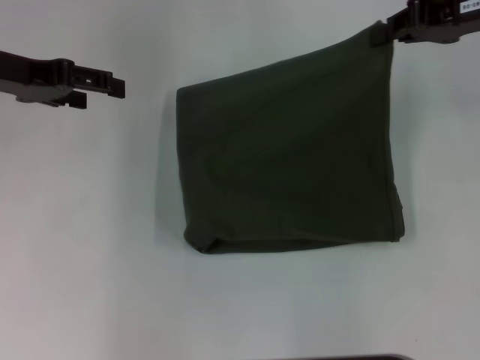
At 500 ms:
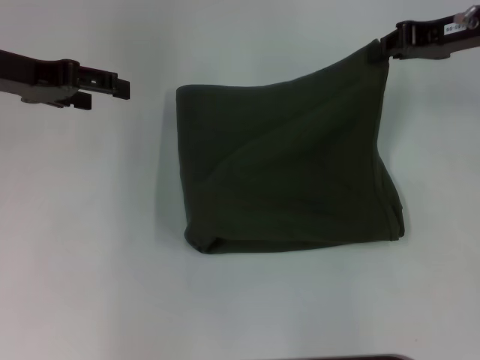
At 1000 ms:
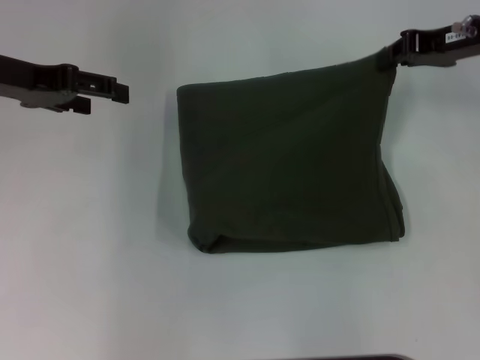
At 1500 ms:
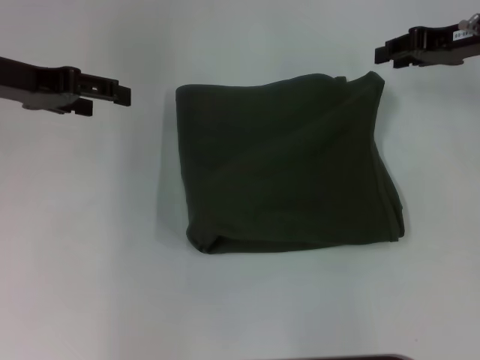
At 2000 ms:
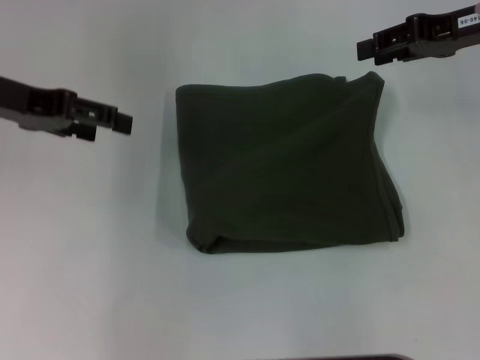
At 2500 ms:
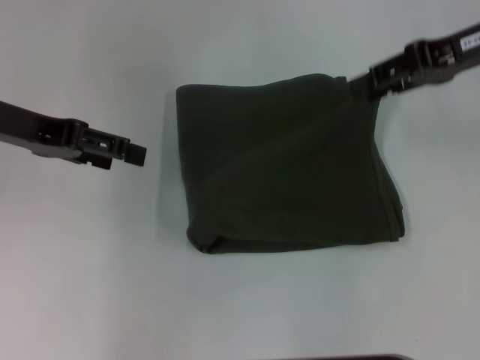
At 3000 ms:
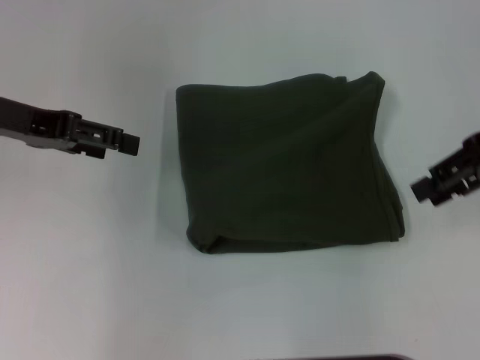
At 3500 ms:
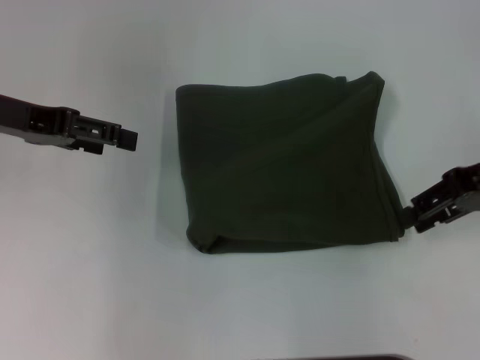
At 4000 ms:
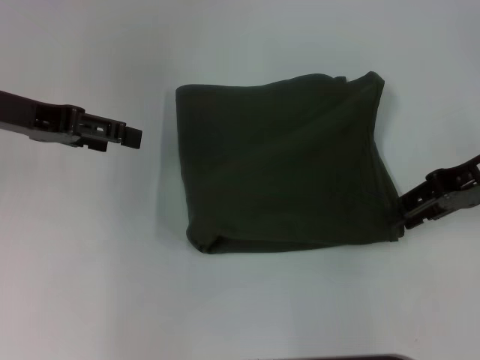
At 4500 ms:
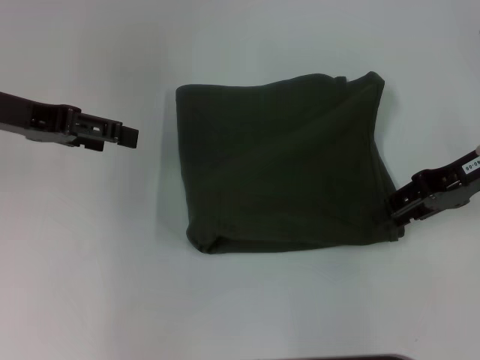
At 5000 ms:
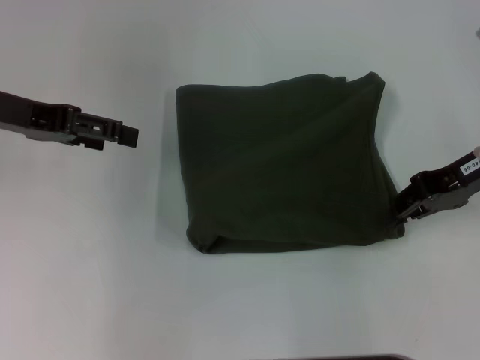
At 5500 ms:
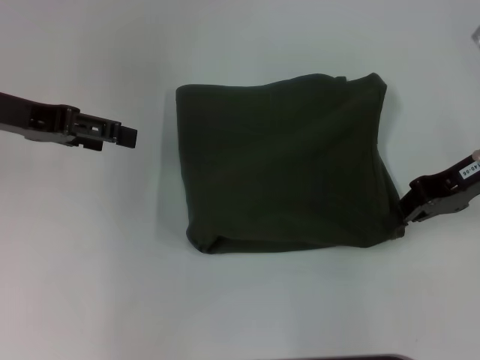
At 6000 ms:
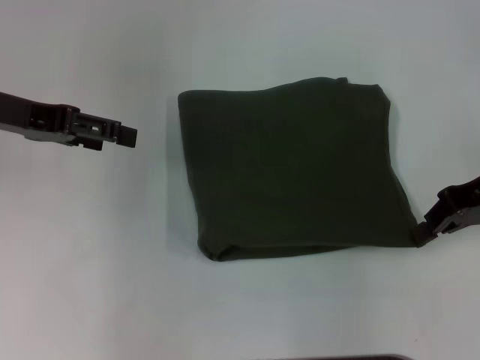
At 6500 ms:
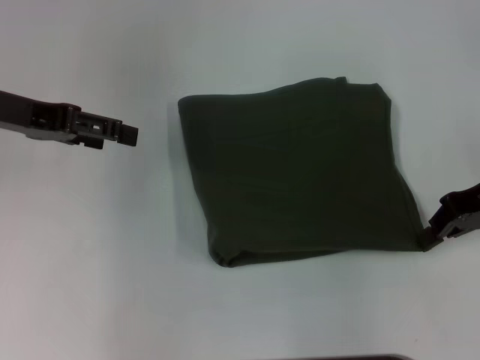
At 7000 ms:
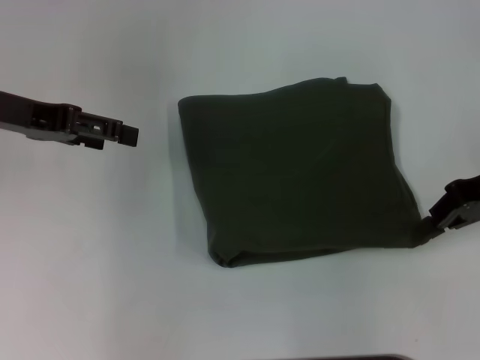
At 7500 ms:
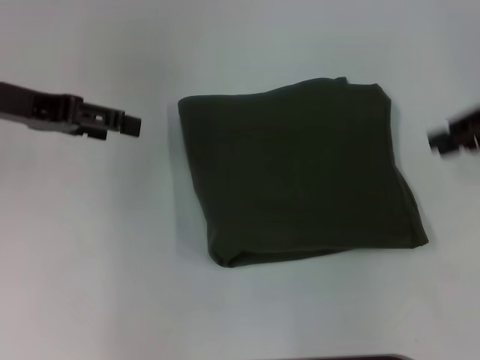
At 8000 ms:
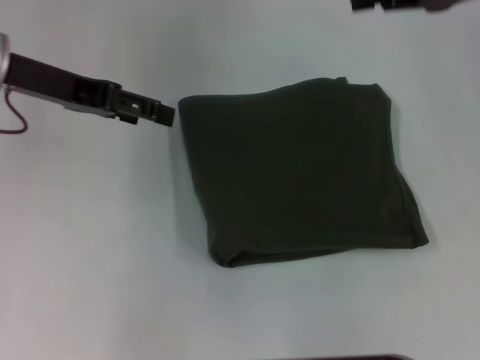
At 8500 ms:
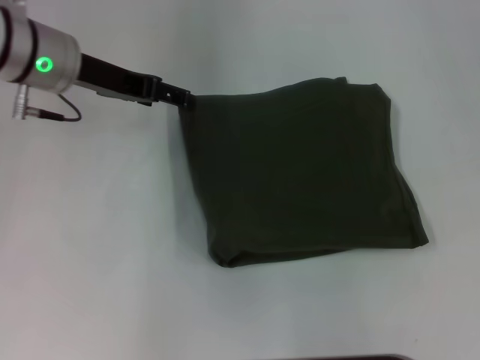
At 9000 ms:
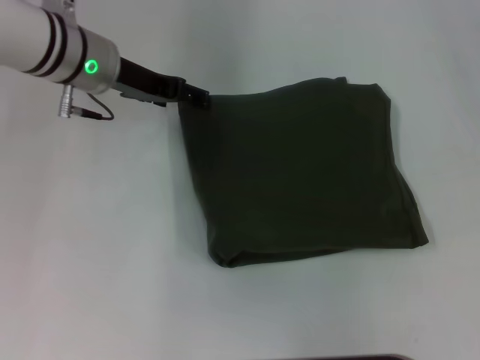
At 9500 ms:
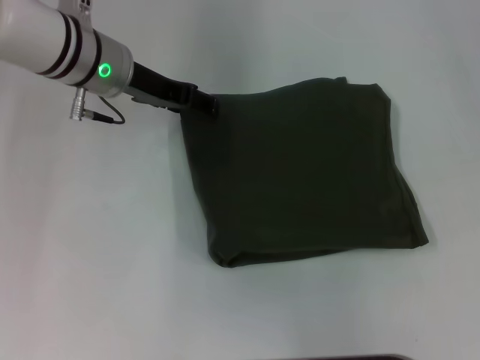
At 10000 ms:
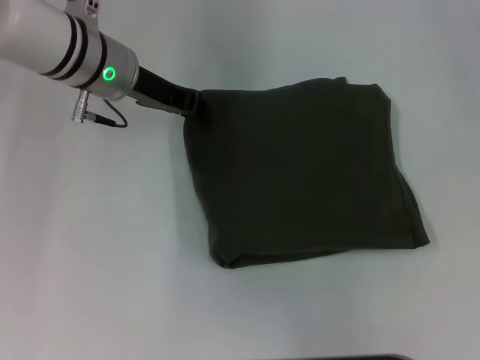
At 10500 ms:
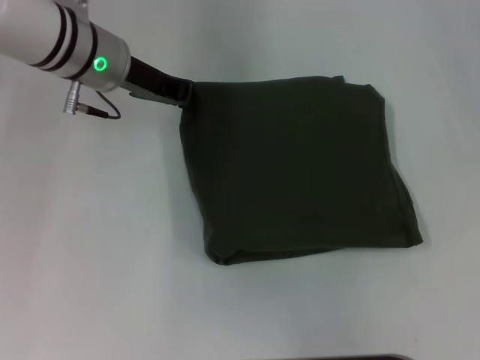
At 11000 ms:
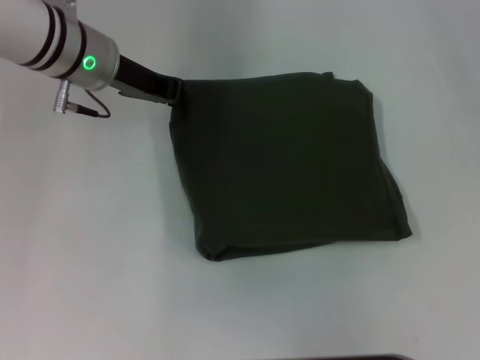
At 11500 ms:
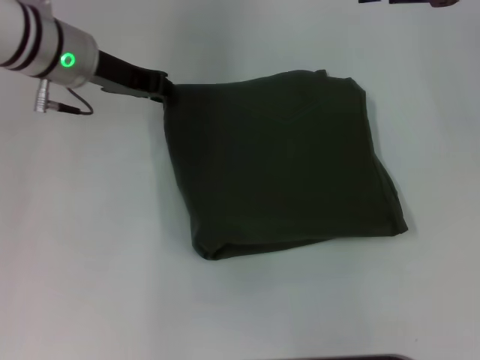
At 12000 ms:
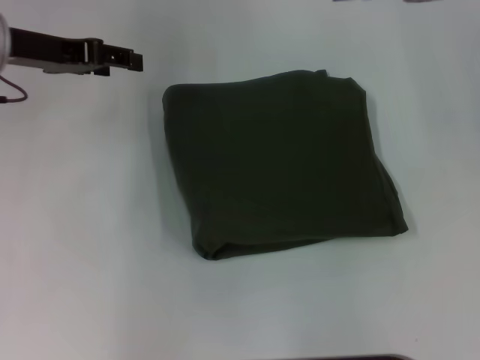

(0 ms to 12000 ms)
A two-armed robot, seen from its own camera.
0 ms - 2000 ms: The right gripper opens up.
2000 ms - 4000 ms: The right gripper shifts some 10 cm backward and downward.
4000 ms - 6000 ms: The right gripper closes.
6000 ms - 8000 ms: The right gripper travels upward and forward by about 10 cm.
8000 ms - 10000 ms: The left gripper moves to the right and downward, some 10 cm, and closes its fingers.
10000 ms - 12000 ms: The left gripper shifts about 10 cm to the left, and closes, then reopens.

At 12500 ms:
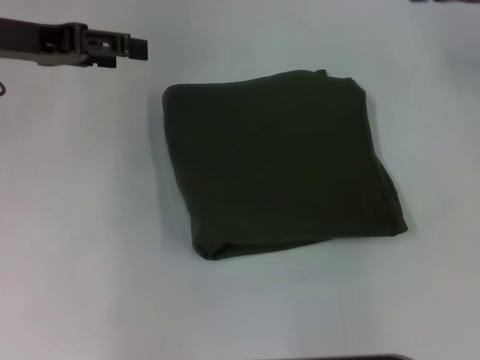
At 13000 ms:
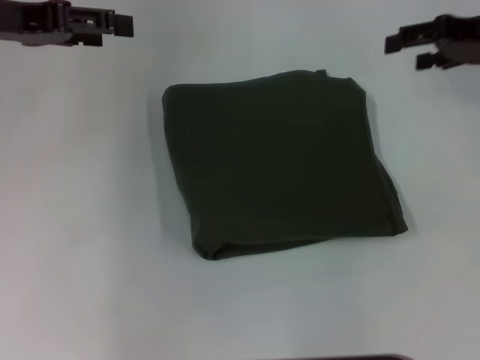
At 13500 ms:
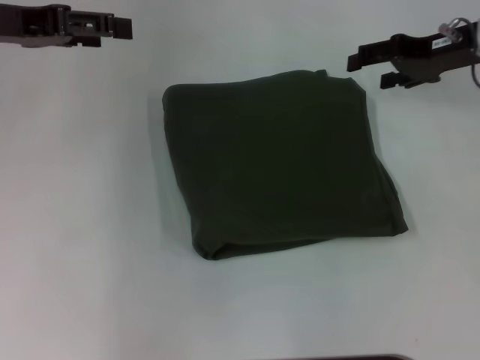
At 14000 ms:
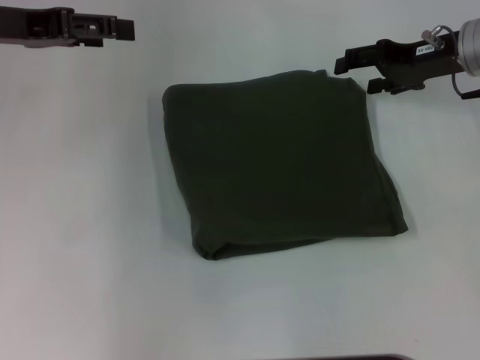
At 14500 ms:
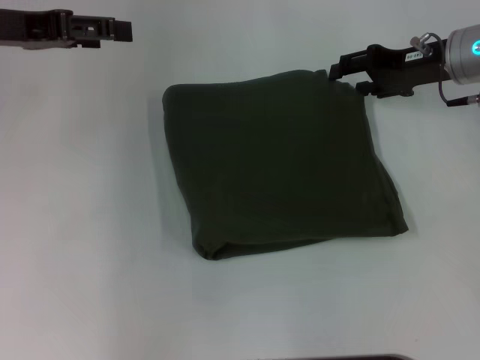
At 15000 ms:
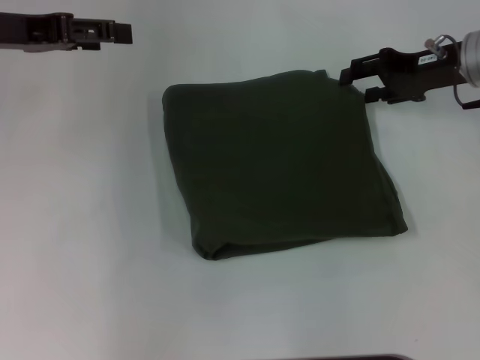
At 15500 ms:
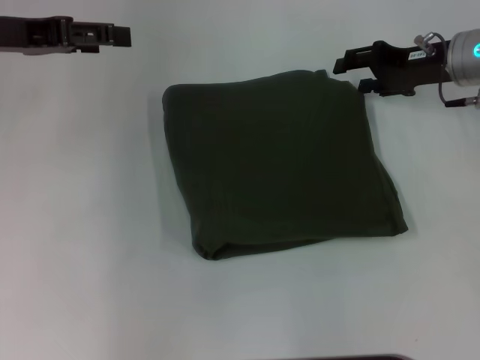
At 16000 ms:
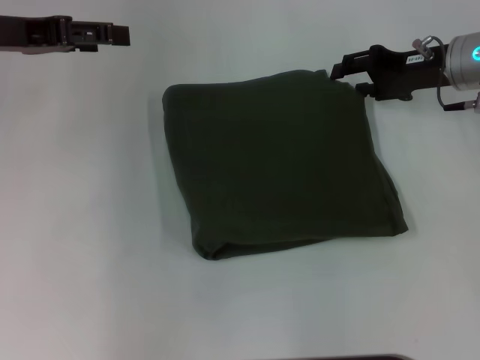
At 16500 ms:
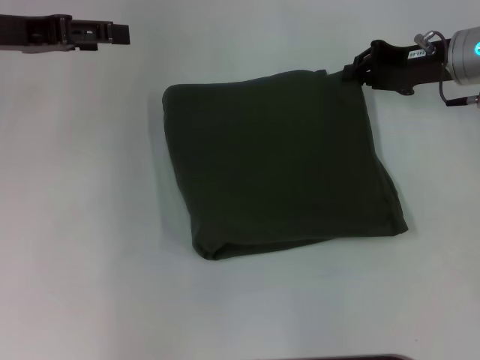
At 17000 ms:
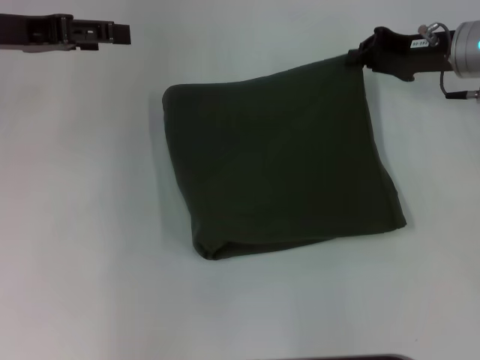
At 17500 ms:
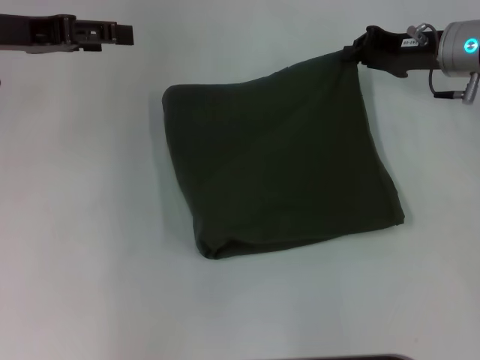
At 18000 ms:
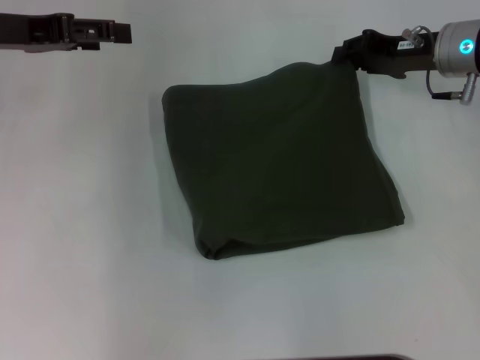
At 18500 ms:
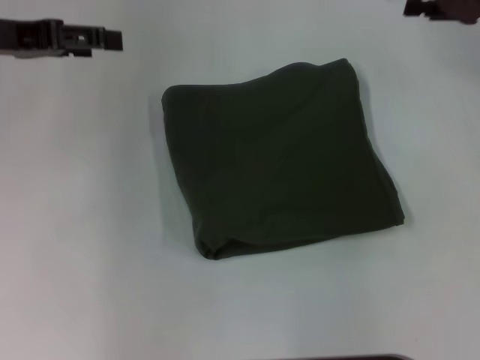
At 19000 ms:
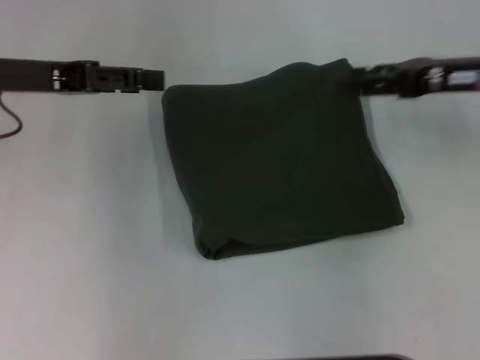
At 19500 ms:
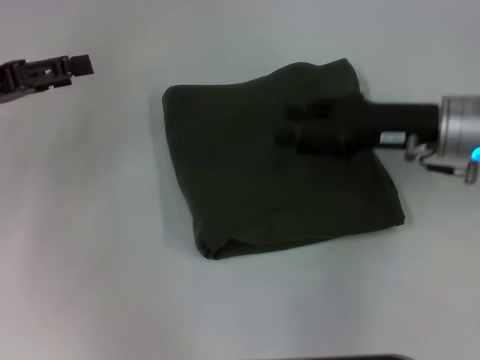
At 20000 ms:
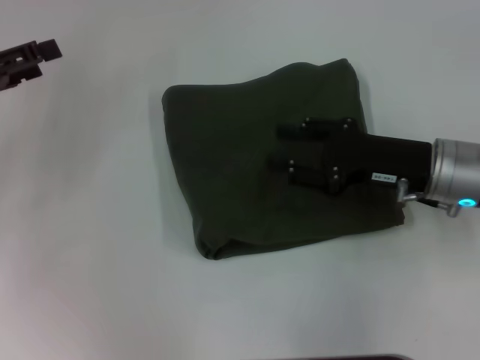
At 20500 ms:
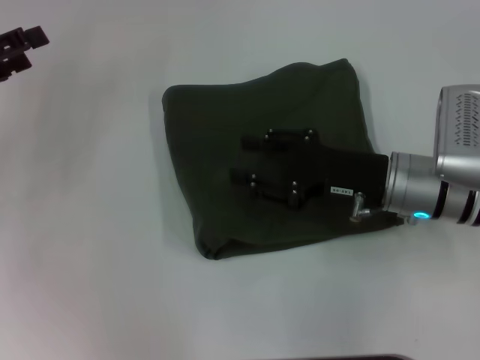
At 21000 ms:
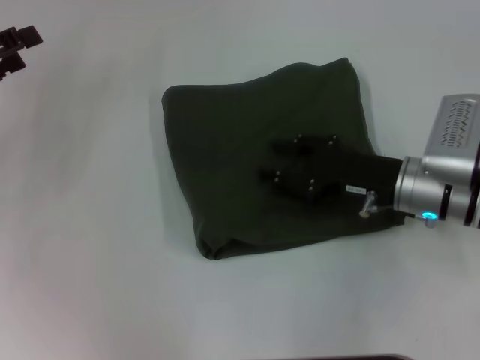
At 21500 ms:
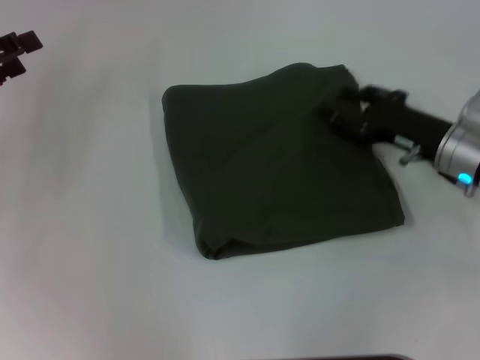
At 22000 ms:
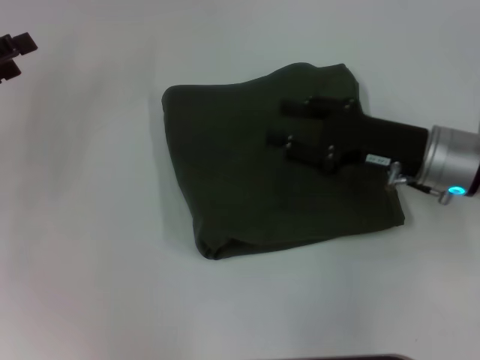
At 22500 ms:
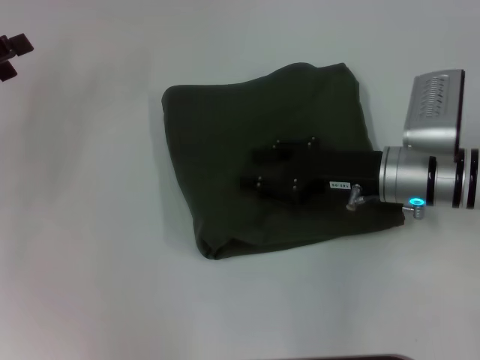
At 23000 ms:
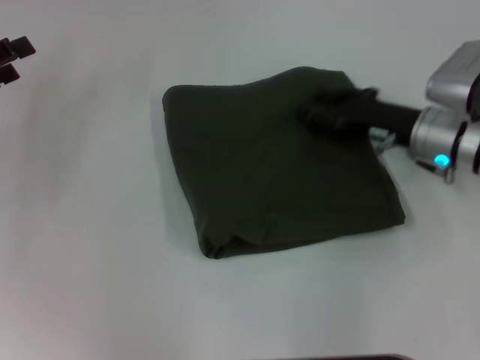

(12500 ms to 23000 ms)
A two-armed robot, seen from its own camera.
12500 ms - 14500 ms: The right gripper shifts approximately 10 cm downward and to the left.
14500 ms - 16500 ms: The grippers make only small movements.
16500 ms - 19000 ms: The right gripper is displaced backward by about 5 cm, and closes and opens again.
19000 ms - 21000 ms: The right gripper shifts some 15 cm downward, to the left and backward. Meanwhile the left gripper travels to the left by some 10 cm.
21000 ms - 23000 ms: The right gripper moves left and right over some 5 cm, changing direction 2 times.

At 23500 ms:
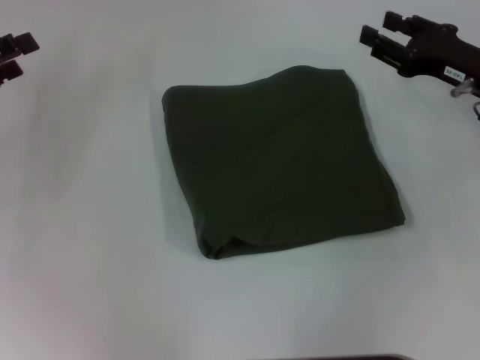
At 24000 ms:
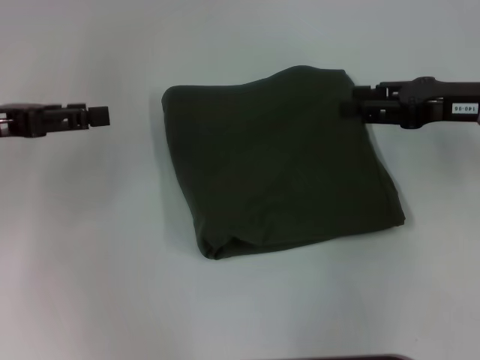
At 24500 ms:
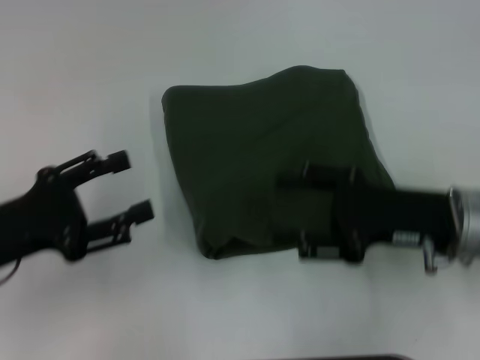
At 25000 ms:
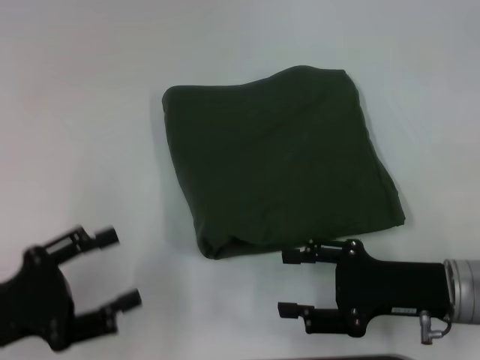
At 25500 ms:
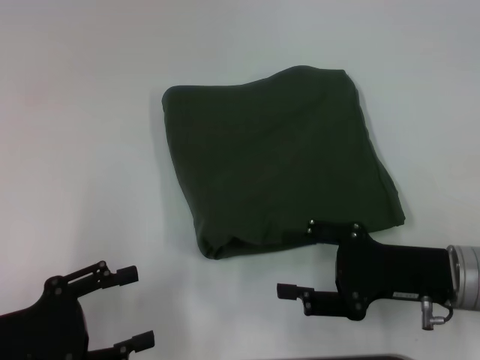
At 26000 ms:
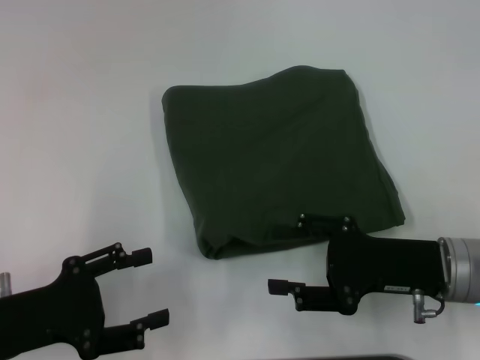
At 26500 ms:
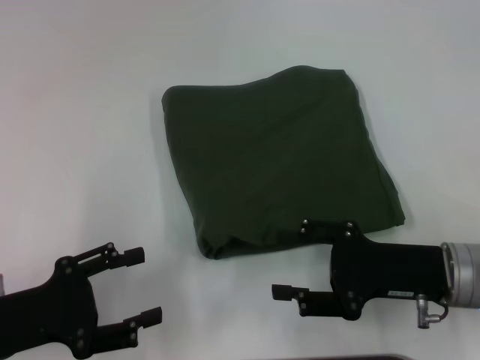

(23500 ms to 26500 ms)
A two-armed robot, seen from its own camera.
23500 ms - 25000 ms: The left gripper goes roughly 15 cm backward. The right gripper travels backward and downward by about 15 cm.
25000 ms - 26500 ms: There are only small adjustments of the grippers.
